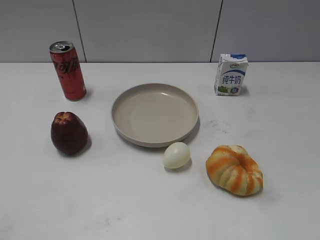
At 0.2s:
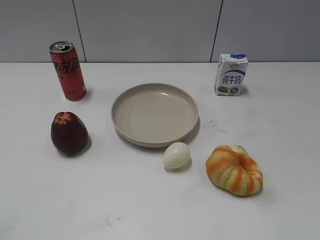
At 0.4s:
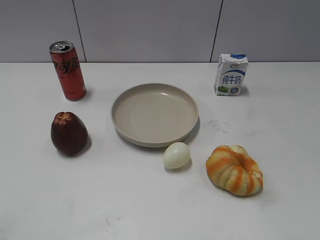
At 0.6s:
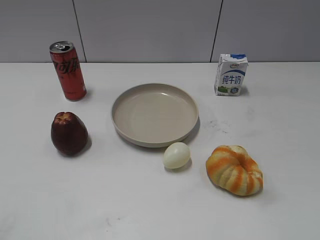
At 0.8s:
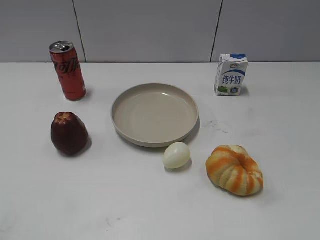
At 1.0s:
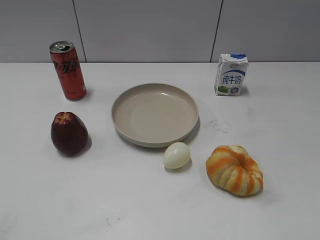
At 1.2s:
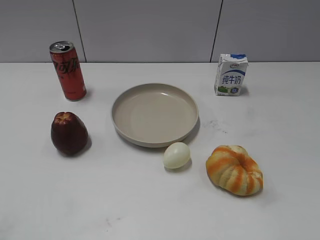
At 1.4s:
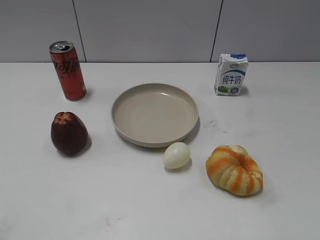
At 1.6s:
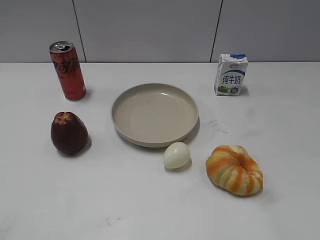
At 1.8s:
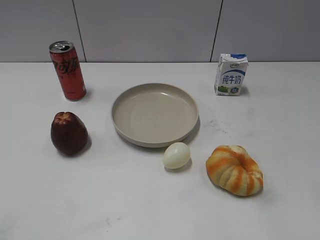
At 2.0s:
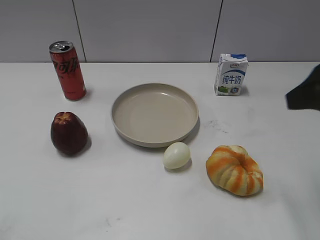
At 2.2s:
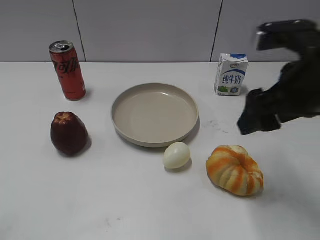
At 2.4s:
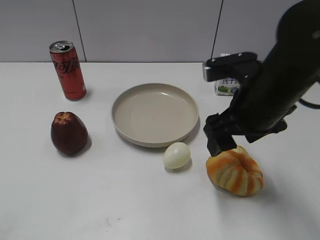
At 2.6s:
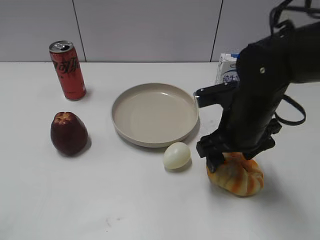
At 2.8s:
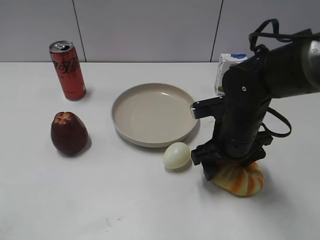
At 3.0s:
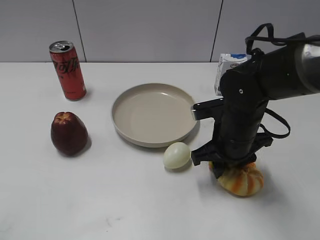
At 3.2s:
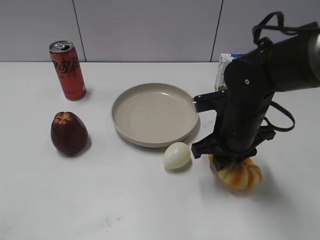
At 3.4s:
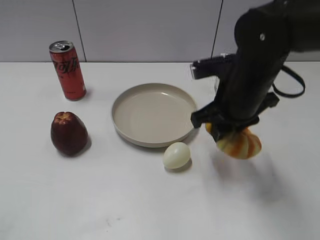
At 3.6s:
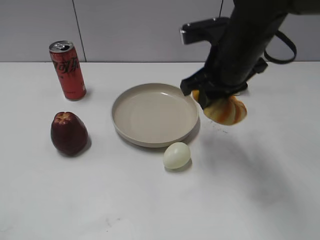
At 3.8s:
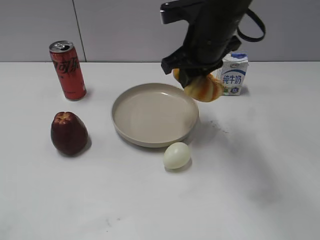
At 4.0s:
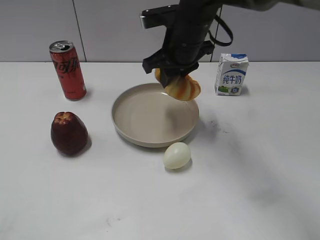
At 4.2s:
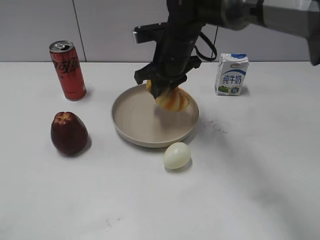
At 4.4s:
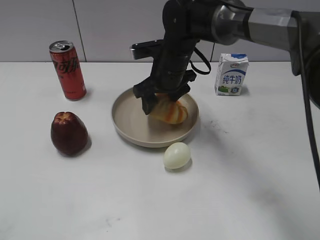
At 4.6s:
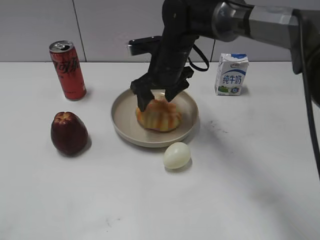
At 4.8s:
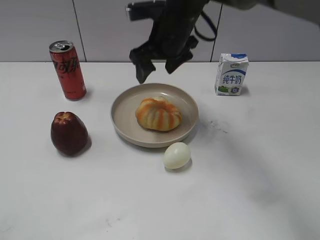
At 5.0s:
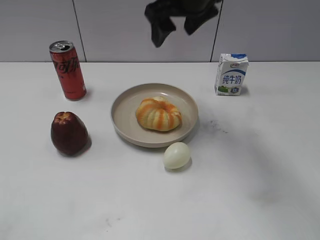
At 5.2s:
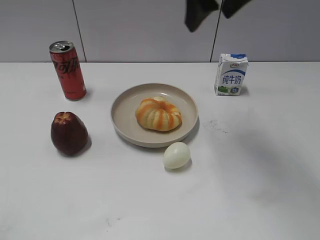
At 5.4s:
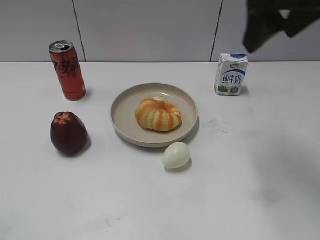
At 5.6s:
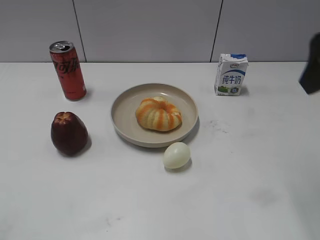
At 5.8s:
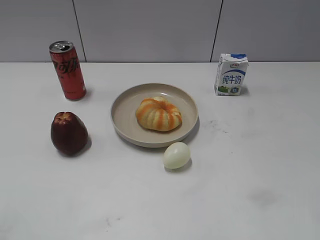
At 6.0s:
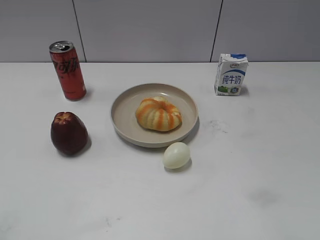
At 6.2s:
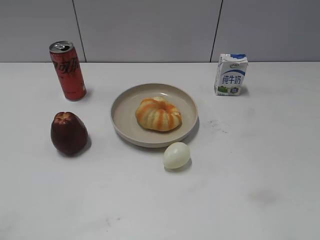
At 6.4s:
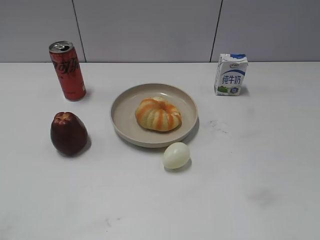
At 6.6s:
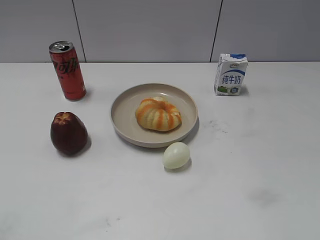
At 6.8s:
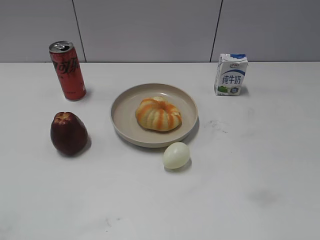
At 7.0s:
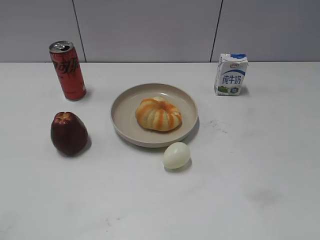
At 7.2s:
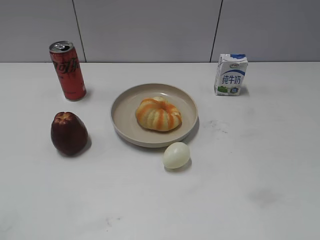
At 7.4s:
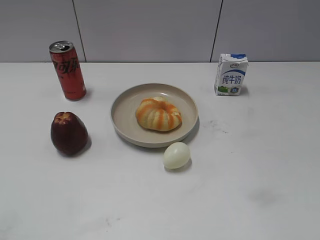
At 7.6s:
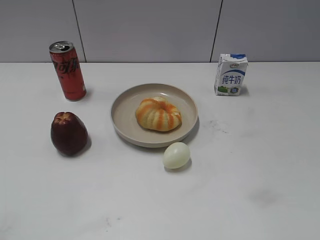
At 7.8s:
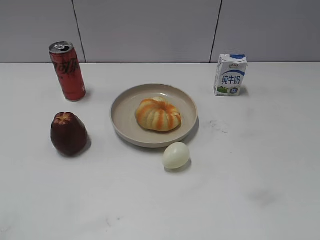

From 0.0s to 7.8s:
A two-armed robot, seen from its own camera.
Step, from 1.0s to 3.0s: Grasp the round bread with right gripper.
Step, from 3.2s to 4.6s: Place the round bread on the plate with right gripper.
From 1.6s to 3.2s: The right gripper heads forward, downward and to the left, covering some 35 cm, and closes its fingers.
From 3.2s to 4.6s: The right gripper is displaced forward and to the left by approximately 15 cm, and opens up.
From 4.6s to 6.2s: The right gripper is displaced backward, to the right and upward by about 50 cm.
